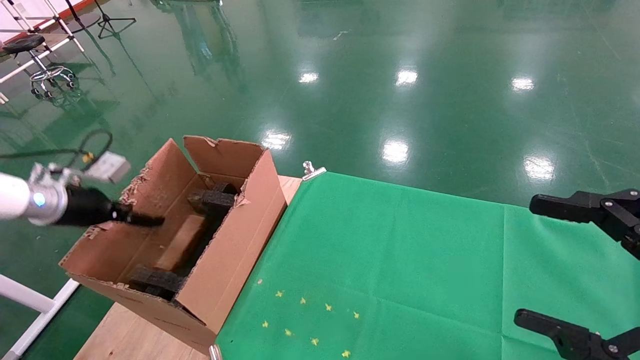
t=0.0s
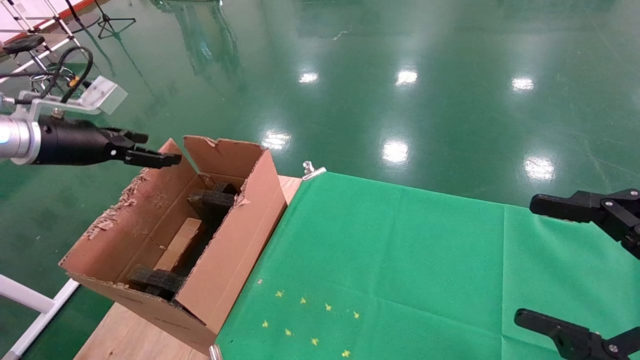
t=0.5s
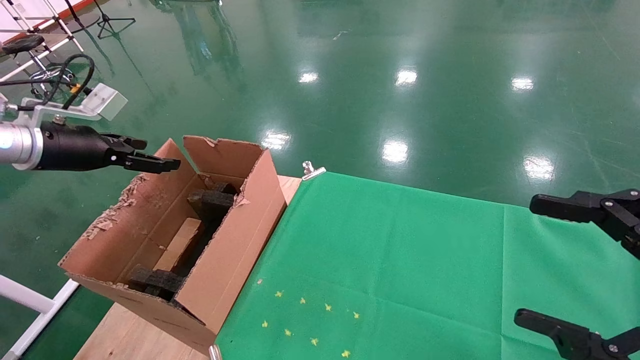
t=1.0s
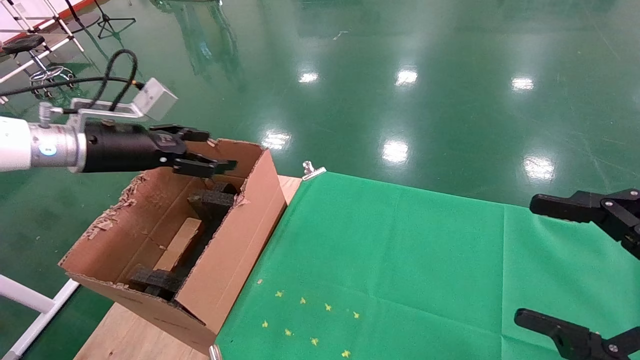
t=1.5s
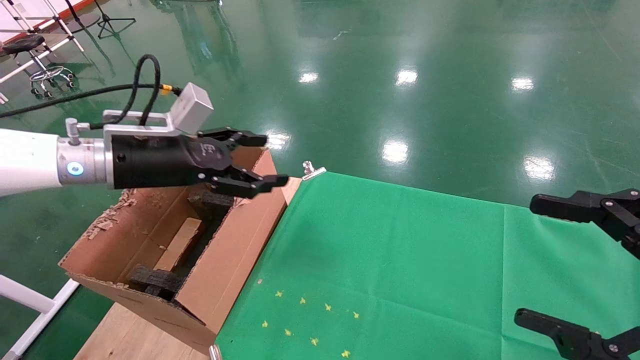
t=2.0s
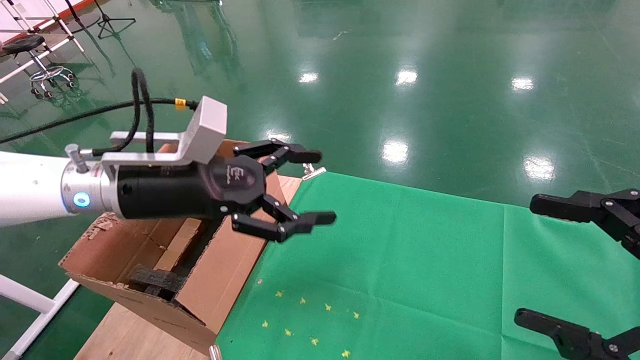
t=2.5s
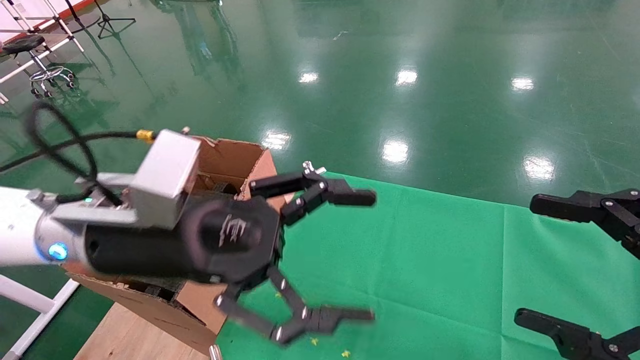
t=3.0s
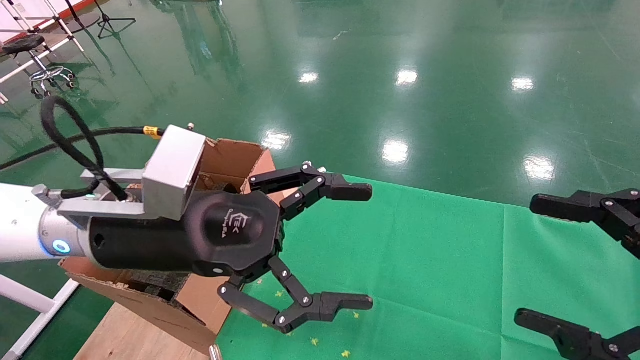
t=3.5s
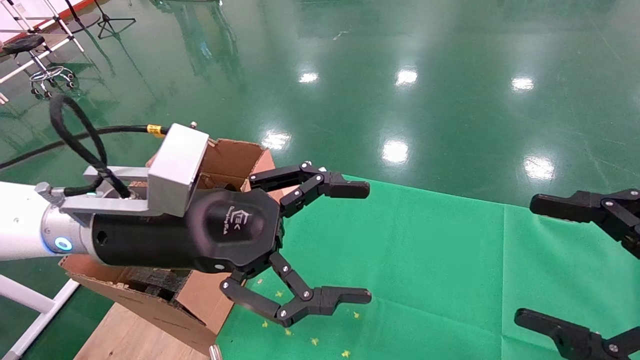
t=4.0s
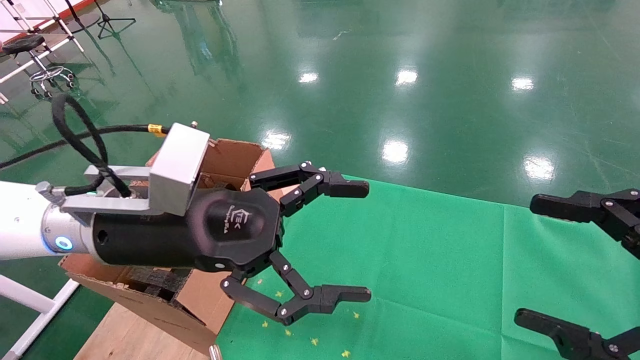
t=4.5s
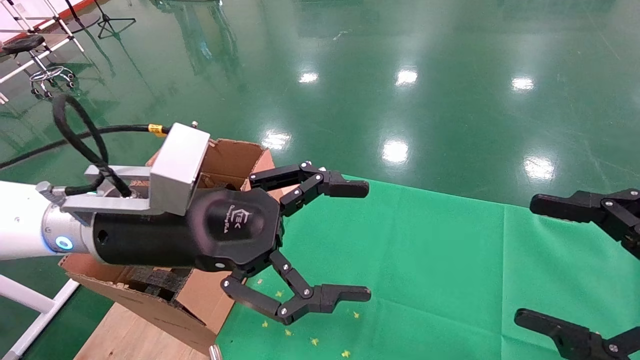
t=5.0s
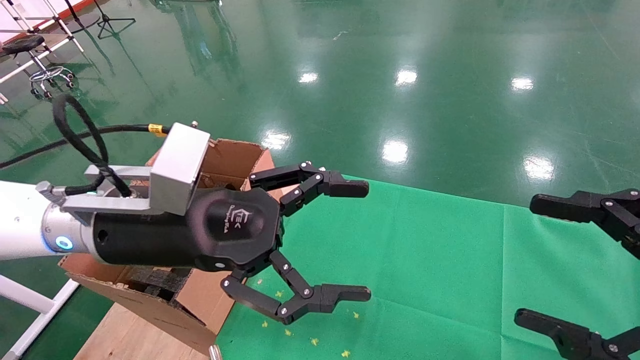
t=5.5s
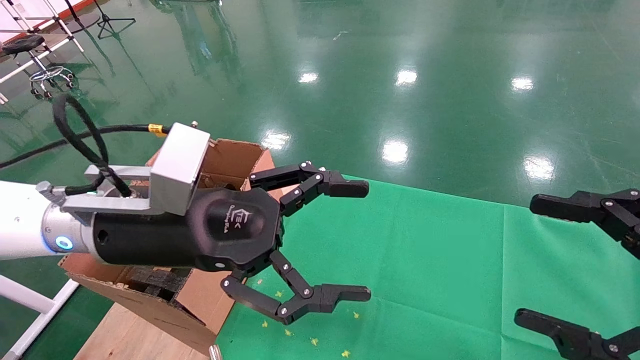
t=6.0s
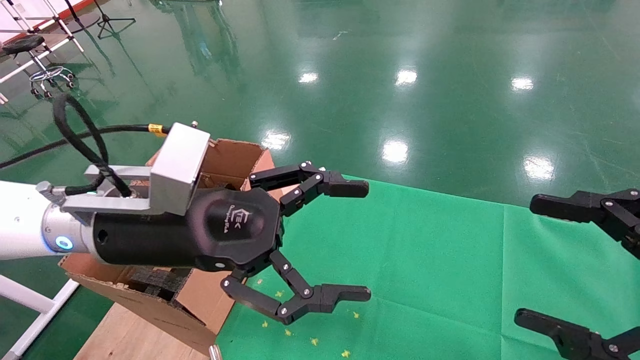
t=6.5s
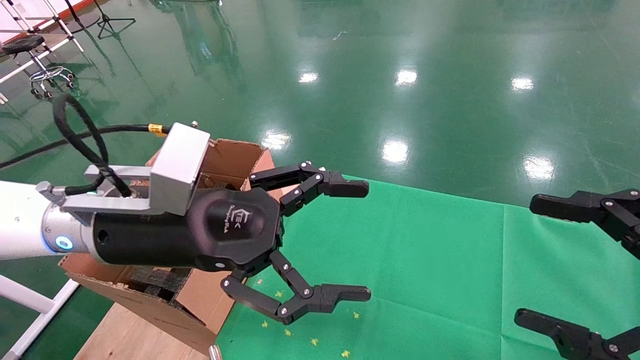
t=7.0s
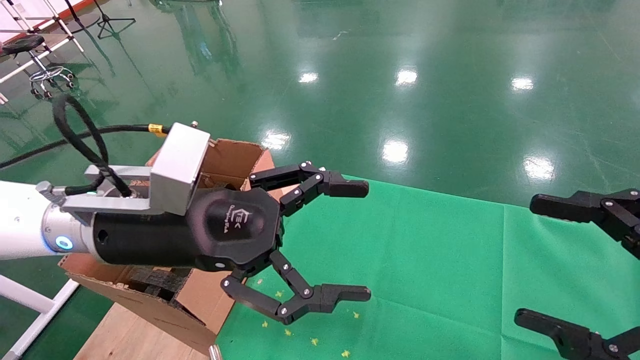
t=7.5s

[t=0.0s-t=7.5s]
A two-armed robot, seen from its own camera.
Task of the whole recording: using a robotic arm to pick up a cardboard box and palace it the carton.
t=0.0s to t=2.0s: The left gripper travels to the right and upward by roughly 20 cm.
t=2.0s to t=4.0s: The left gripper moves to the right and backward, roughly 15 cm.
t=4.0s to t=7.5s: The two grippers keep their place.

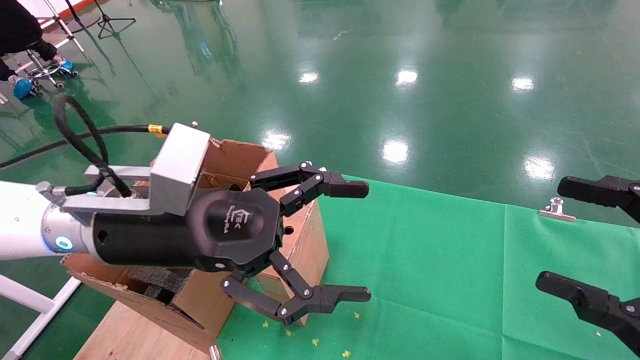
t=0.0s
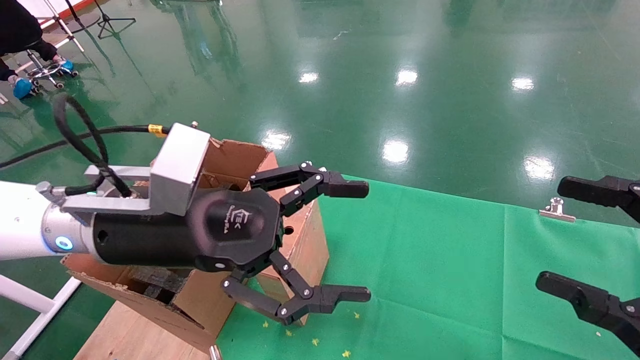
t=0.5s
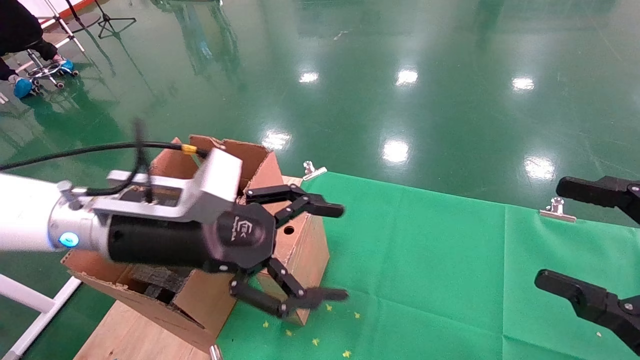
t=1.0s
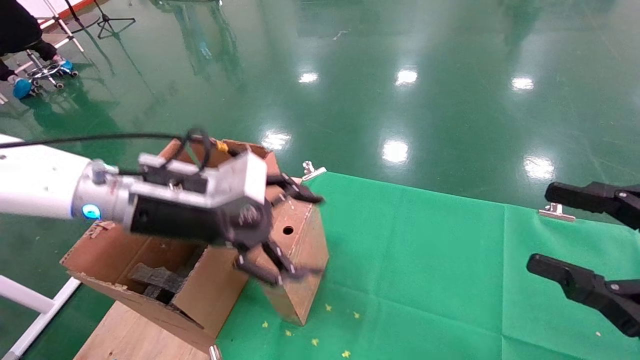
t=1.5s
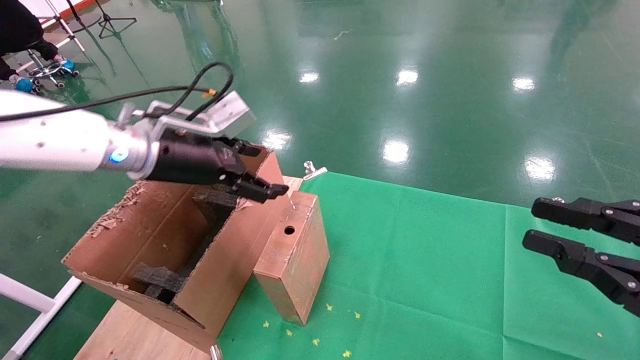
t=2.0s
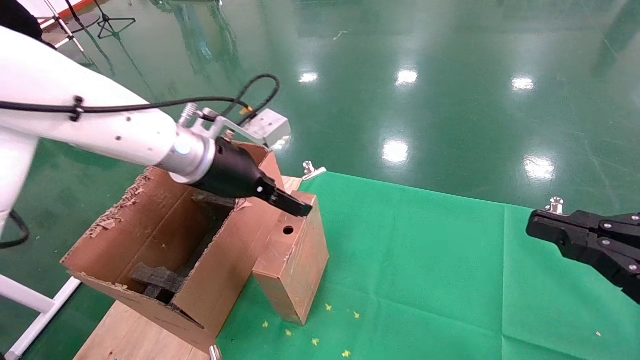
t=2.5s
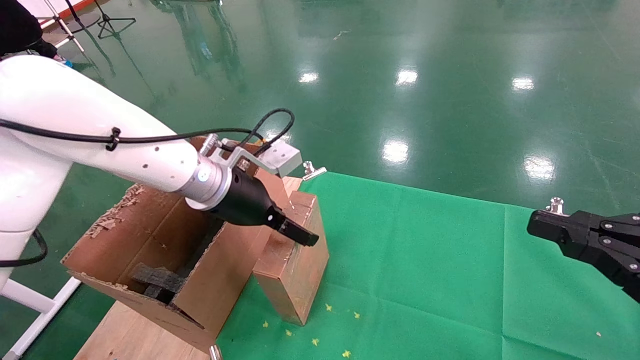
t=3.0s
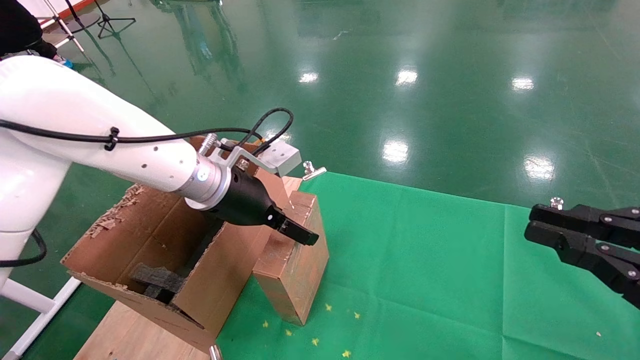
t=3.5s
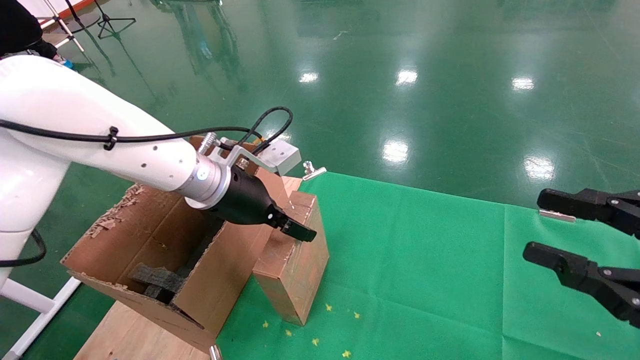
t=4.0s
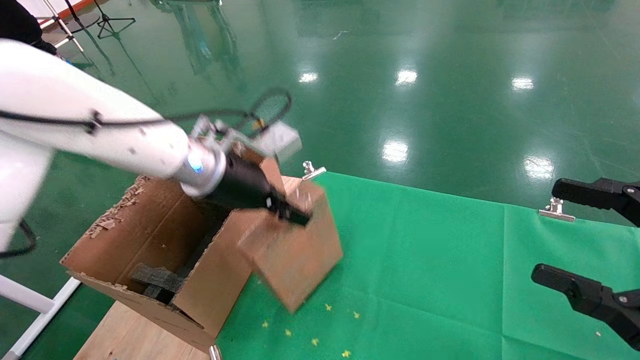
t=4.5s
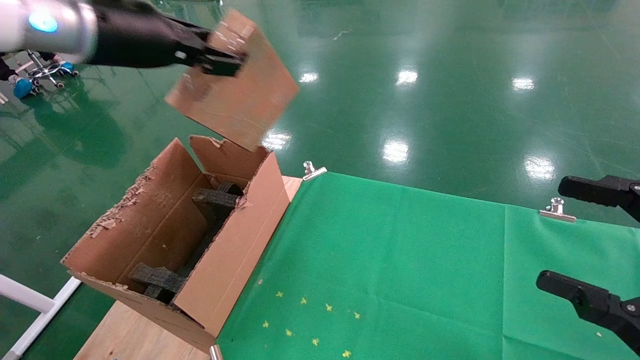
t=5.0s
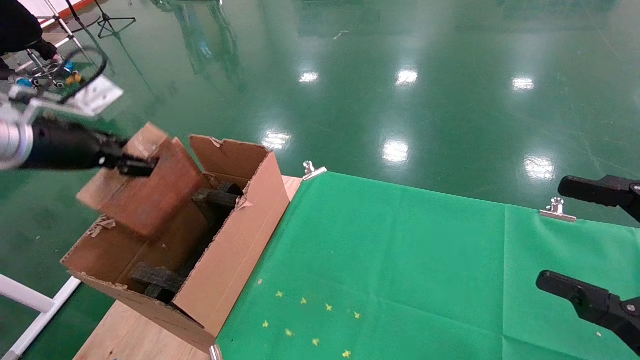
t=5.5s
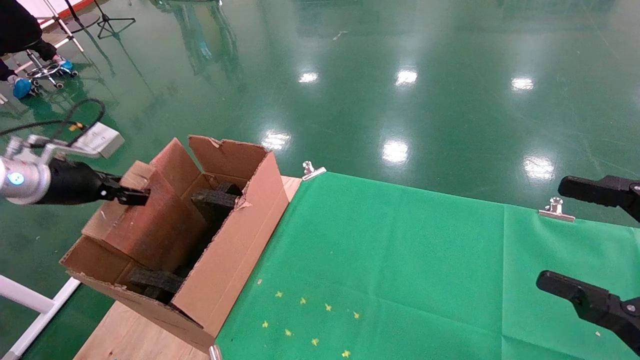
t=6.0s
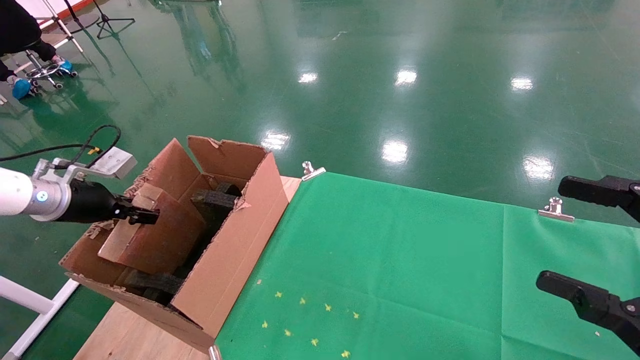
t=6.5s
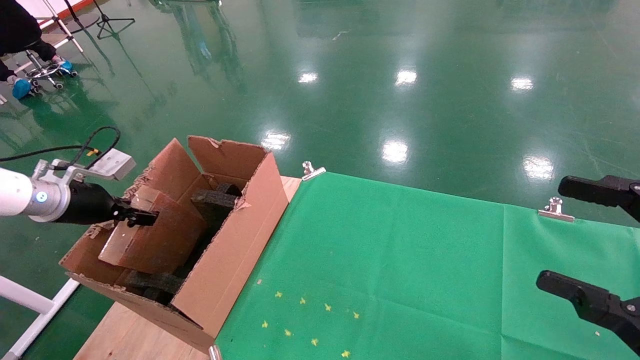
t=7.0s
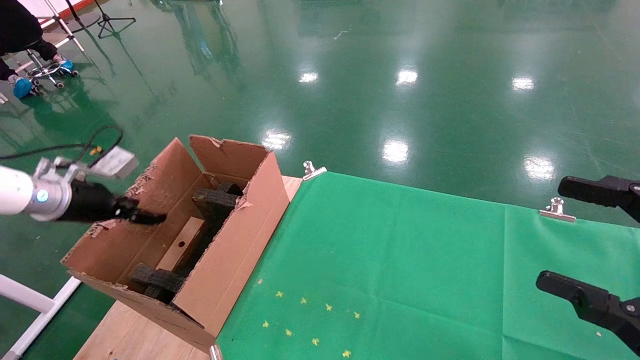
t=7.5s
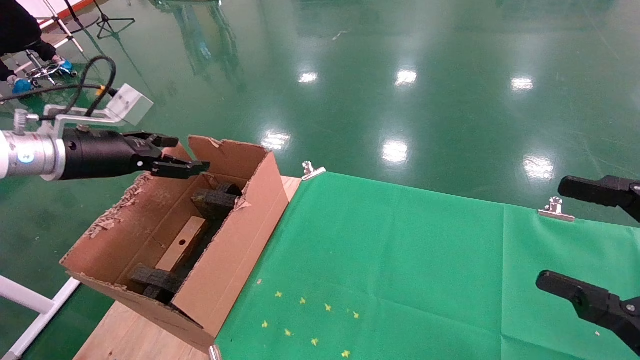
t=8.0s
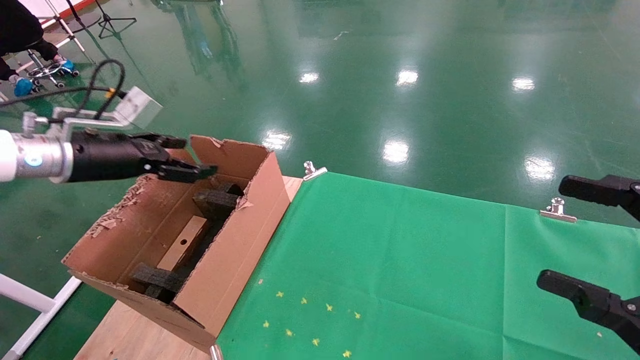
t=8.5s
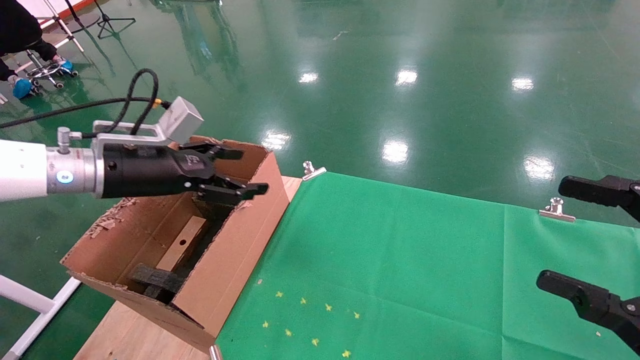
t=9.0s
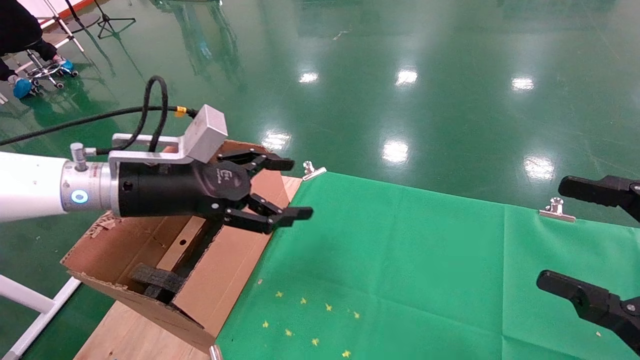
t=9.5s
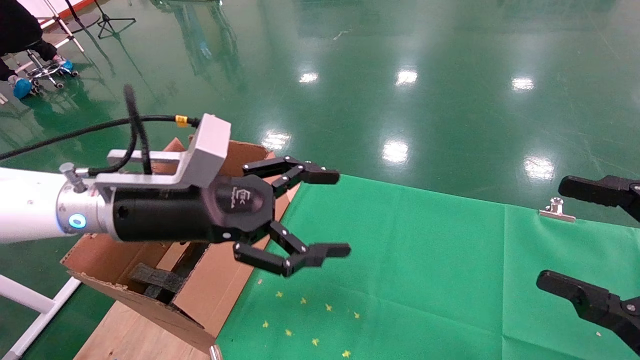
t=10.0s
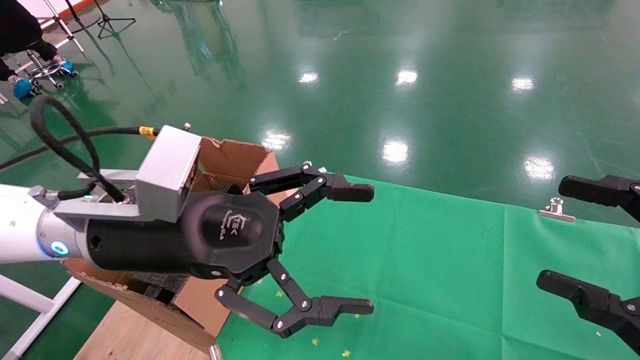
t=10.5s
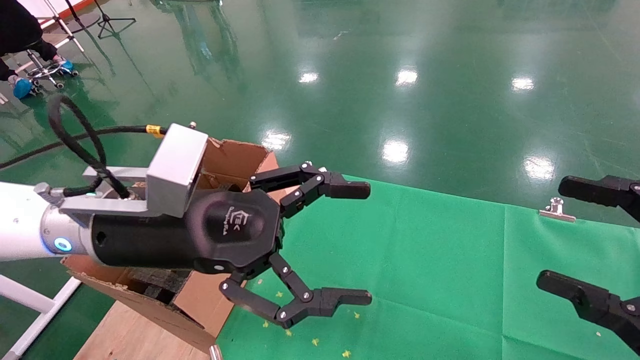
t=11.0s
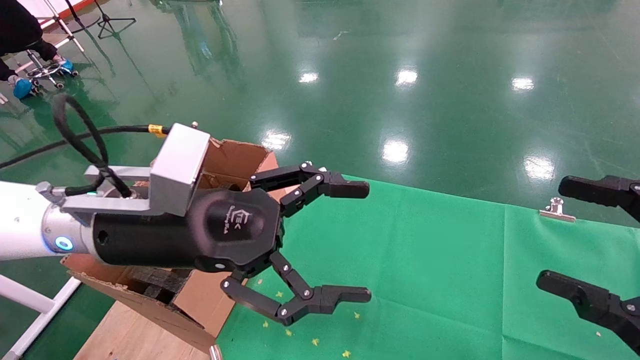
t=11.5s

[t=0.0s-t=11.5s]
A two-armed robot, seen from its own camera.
Task of the whole recording: using a robotic arm to pick up a cardboard box and palace it the carton.
Step, t=1.5s to t=4.0s: Pick up the mouse and the power cord paper box.
Step, t=4.5s to t=7.0s: Place the mouse and the power cord paper box into the container.
t=0.0s to t=2.0s: The right gripper closes up. The left gripper travels forward and to the left by roughly 10 cm.
t=2.0s to t=4.0s: The left gripper moves to the right, some 5 cm, and closes.
t=4.0s to t=6.0s: The right gripper opens. Meanwhile the left gripper is displaced to the left by roughly 30 cm, and closes up.
t=6.0s to t=7.5s: The left gripper opens.
t=7.5s to t=9.5s: The left gripper moves to the right, approximately 20 cm, and opens.
t=9.5s to t=11.5s: The left gripper travels to the right and backward by roughly 10 cm.

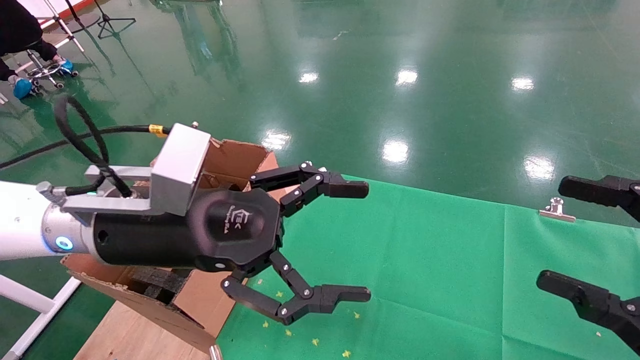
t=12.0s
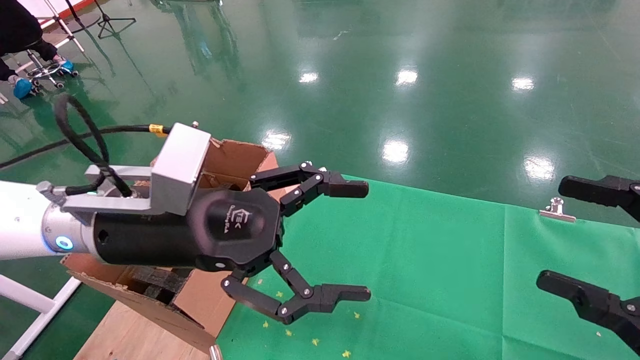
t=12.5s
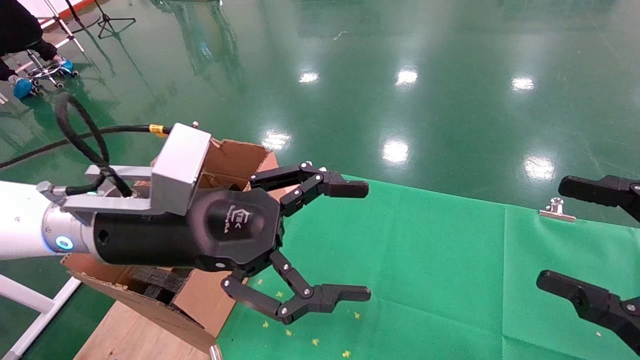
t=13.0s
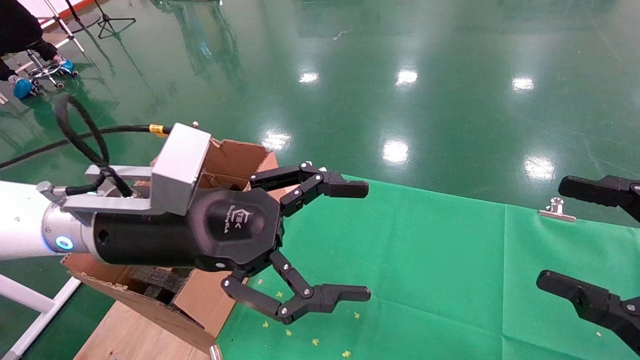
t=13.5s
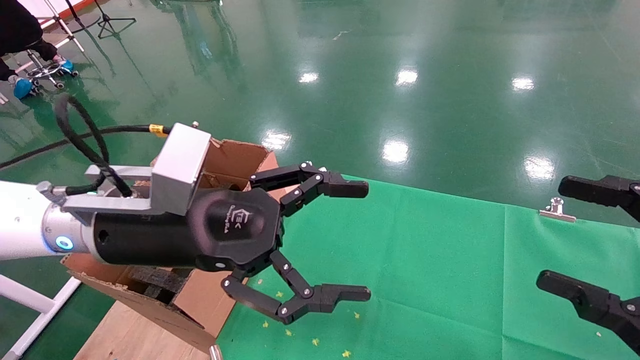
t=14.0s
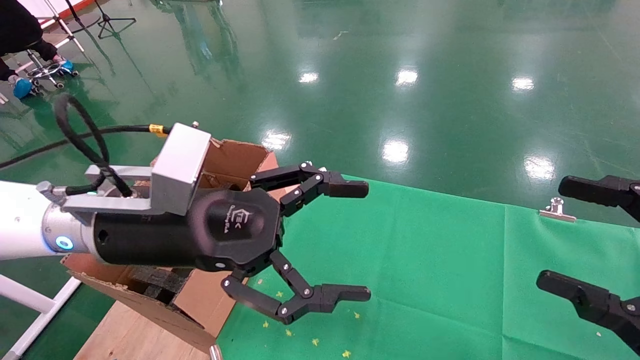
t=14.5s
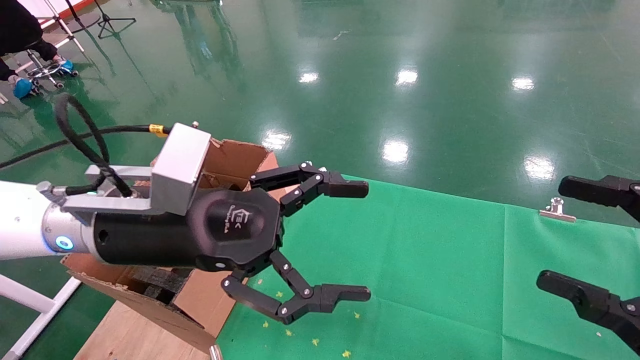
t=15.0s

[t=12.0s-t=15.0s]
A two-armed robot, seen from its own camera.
Task of the whole recording: using a robotic arm to pick up a cardboard box and palace it the carton.
t=12.0s to t=15.0s: Neither gripper changes place.
